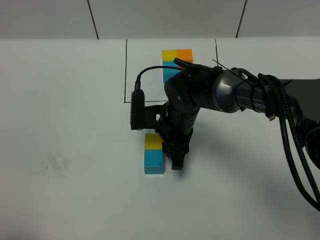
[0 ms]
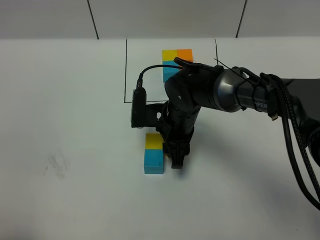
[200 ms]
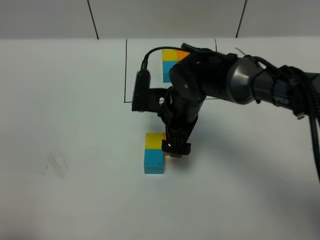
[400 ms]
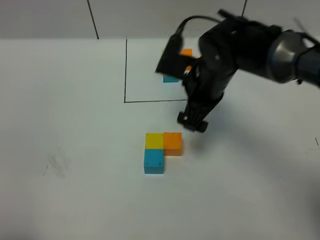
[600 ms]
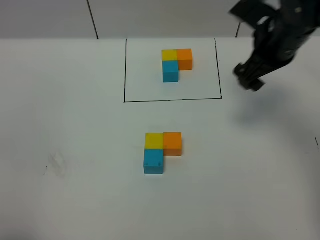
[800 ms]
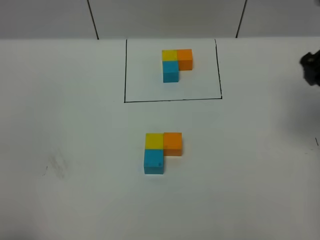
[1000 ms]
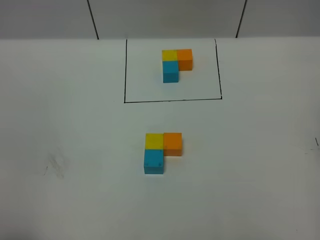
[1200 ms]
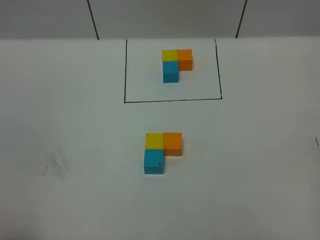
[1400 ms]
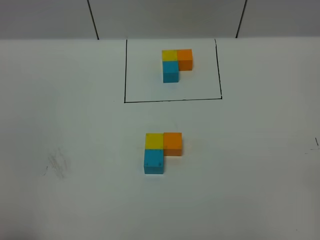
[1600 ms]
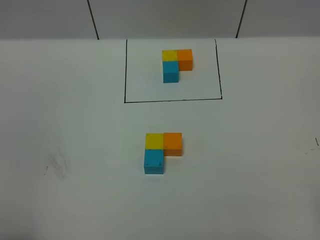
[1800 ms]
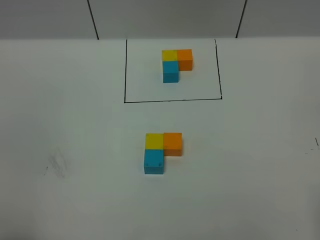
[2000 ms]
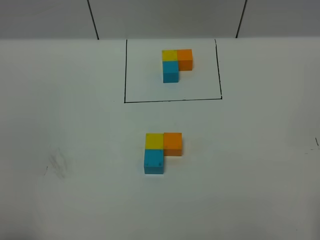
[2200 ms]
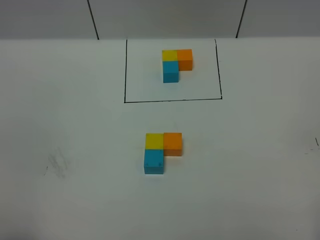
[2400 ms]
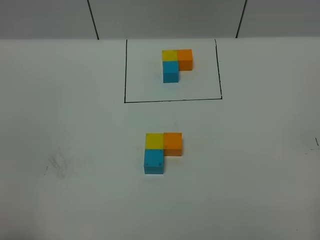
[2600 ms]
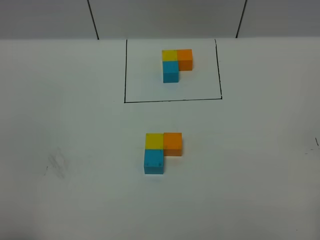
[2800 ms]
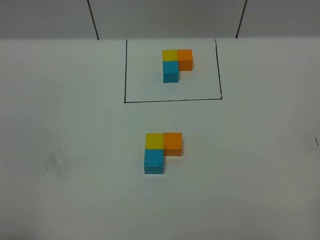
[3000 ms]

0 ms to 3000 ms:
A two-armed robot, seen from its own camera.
Task of the whole recording: According to the building block template in front, assemble the scattered blocks together.
0 ms to 1600 ms: The right gripper goes about 50 cm to the right, backward and upward, and opens its fingers.

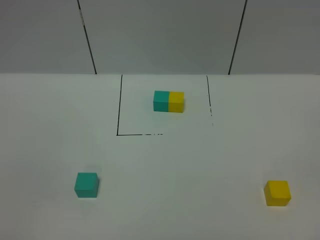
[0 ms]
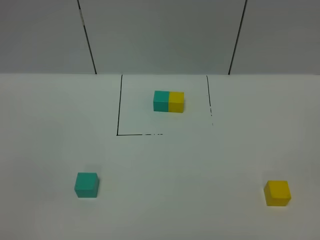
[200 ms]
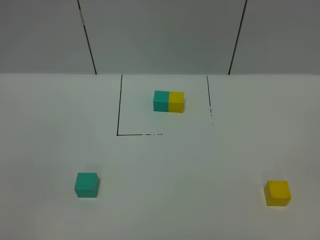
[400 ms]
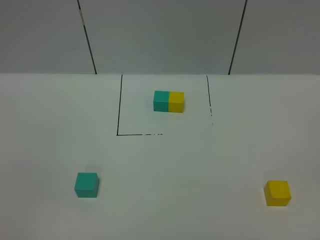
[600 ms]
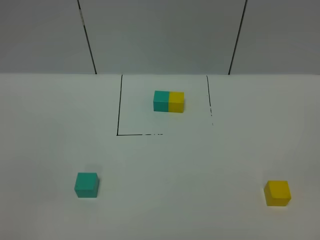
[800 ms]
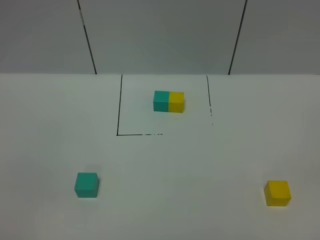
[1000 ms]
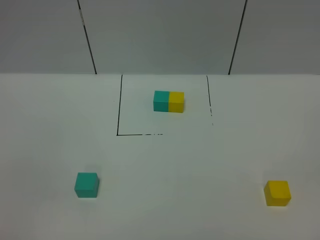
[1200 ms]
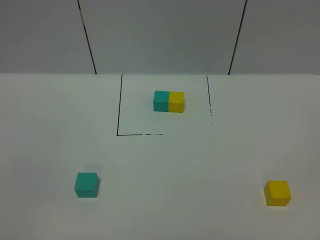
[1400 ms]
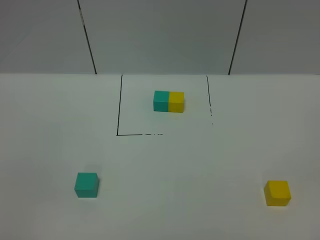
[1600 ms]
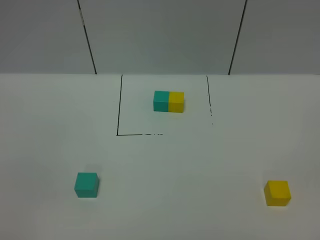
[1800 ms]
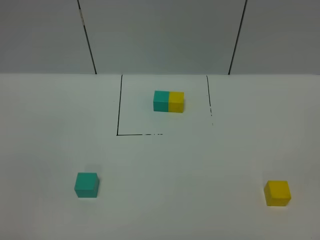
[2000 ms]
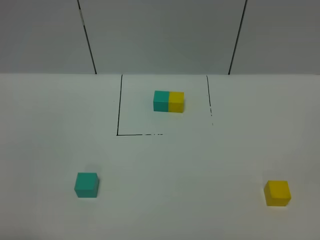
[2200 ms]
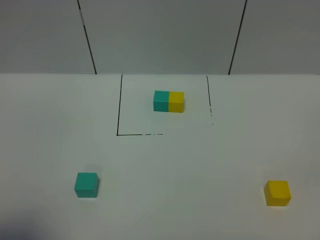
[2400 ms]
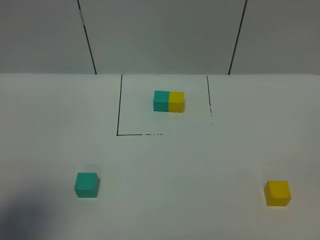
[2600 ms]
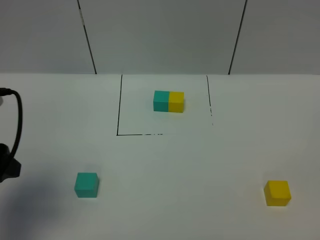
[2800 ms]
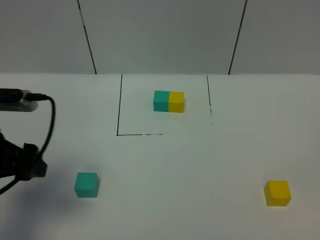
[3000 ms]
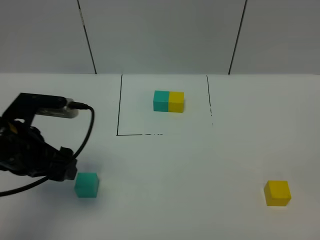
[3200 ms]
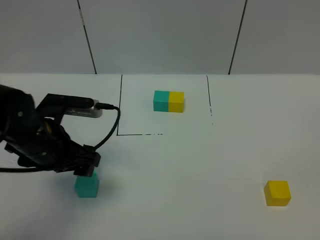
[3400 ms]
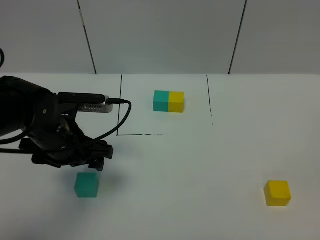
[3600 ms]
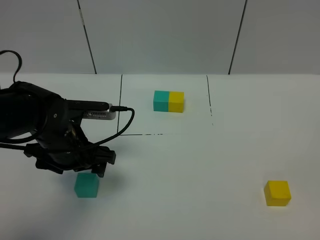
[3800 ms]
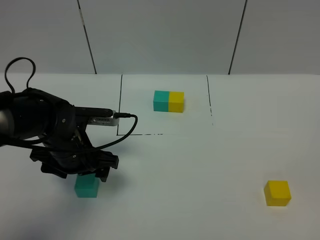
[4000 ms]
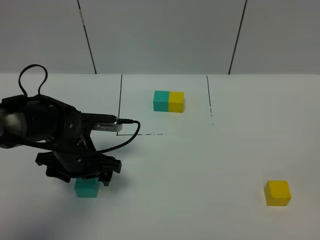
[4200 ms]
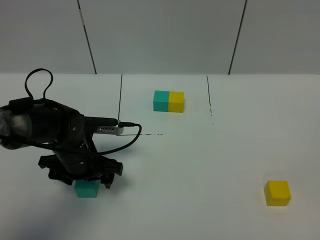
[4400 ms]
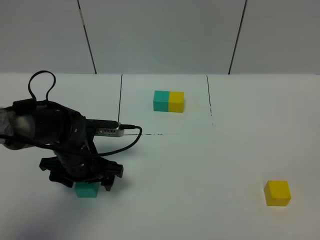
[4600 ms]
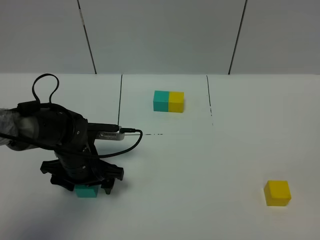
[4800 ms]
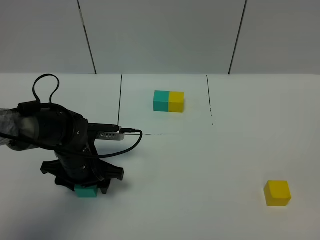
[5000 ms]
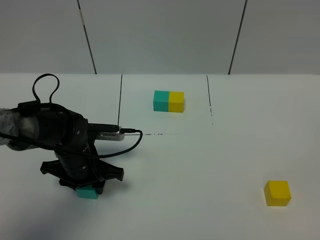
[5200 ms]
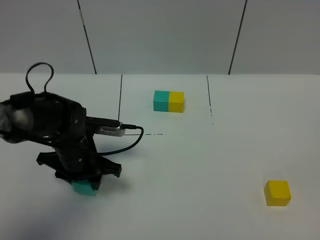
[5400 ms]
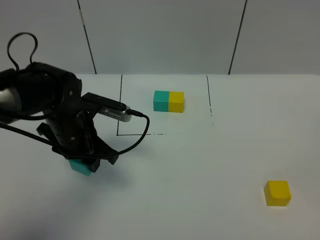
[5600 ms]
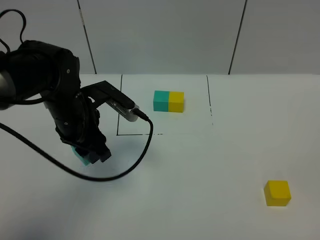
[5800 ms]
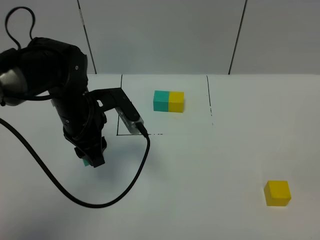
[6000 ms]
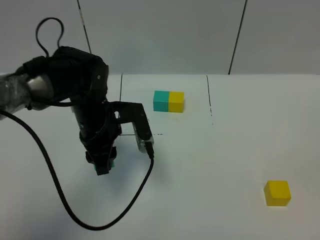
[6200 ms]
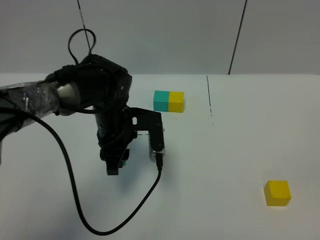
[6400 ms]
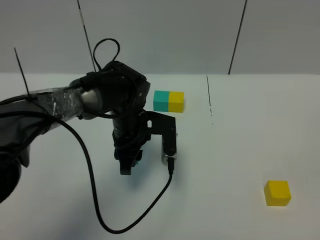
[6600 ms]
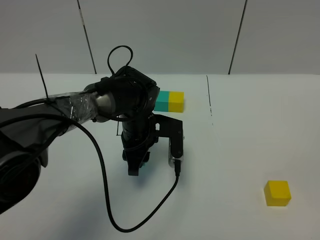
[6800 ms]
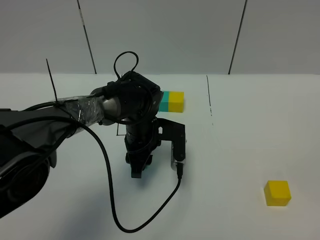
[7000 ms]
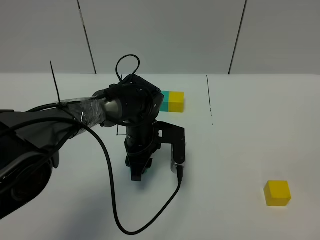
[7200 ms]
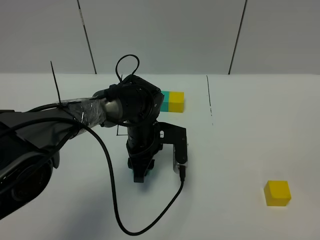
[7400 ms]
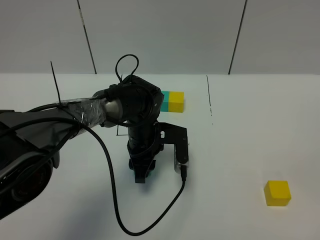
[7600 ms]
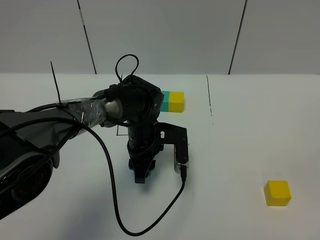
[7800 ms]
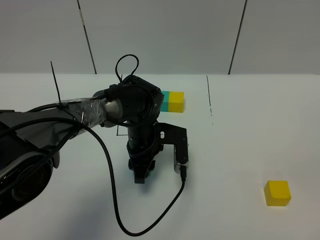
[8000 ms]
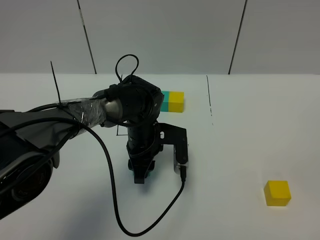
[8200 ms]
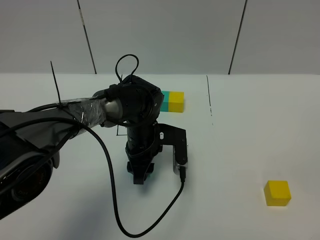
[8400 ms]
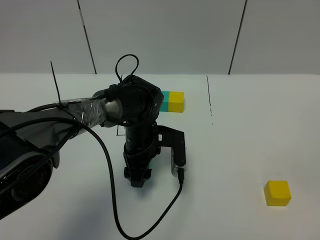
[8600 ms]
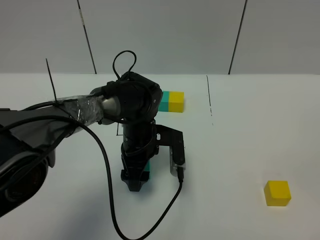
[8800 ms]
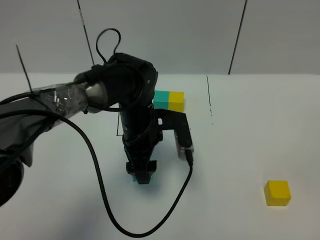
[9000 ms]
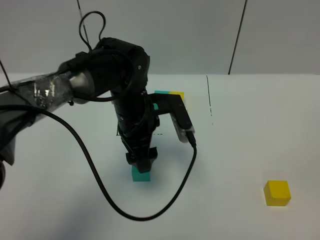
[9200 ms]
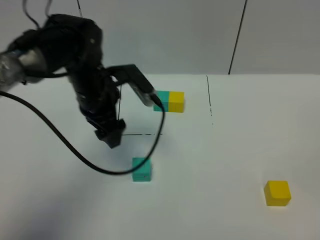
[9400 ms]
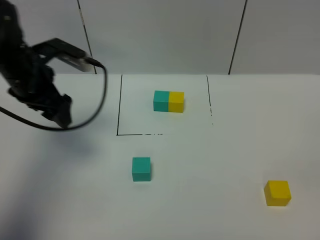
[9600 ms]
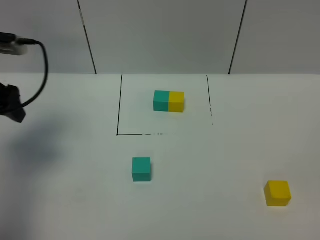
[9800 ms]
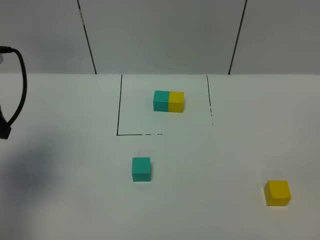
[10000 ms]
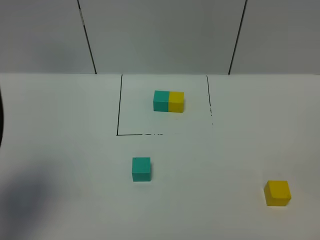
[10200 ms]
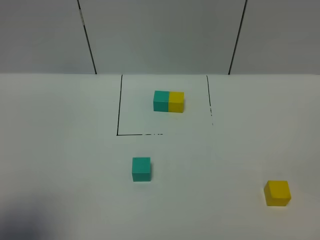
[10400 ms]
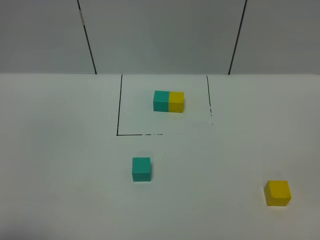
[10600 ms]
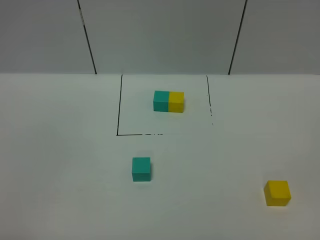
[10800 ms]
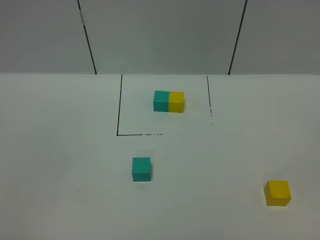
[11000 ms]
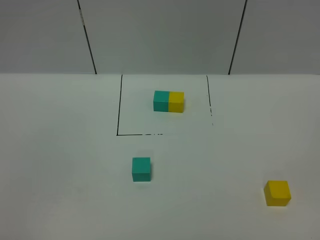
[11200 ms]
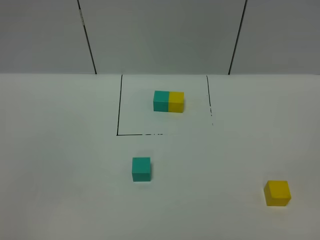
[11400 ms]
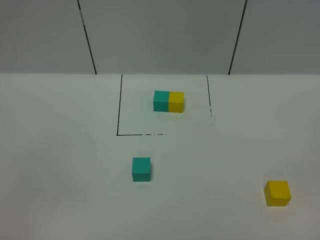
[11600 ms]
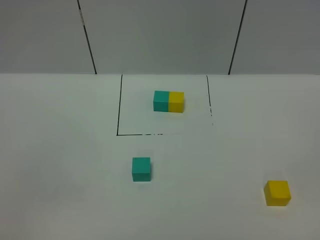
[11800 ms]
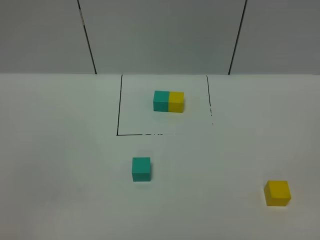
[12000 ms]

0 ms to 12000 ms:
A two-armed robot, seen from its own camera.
Task of the whole recording: According to the building block template in front, assemble the scattered blocks together.
Step, 2800 ms to 9600 ms: Put the green cube in the center of the table.
1600 ms to 3000 ms: The left gripper shifts some 25 cm forward.
3000 ms to 4400 ms: The left gripper shifts roughly 20 cm downward, to the right and forward.
4400 ms to 6000 ms: The left gripper is displaced upward by some 10 cm, and closes.
6000 ms to 7600 ms: The left gripper shifts some 15 cm to the right and downward.
7600 ms to 9000 ms: The left gripper heads upward, covering about 5 cm, and opens.
9000 ms to 10400 ms: The left gripper heads to the left, backward and upward, covering approximately 40 cm.
10400 ms to 12000 ms: The left gripper heads backward and downward, covering approximately 15 cm.

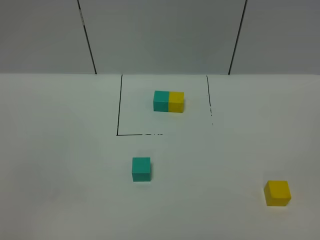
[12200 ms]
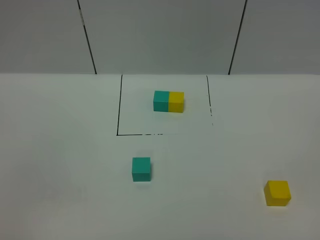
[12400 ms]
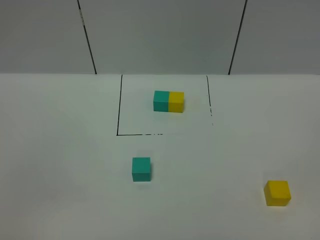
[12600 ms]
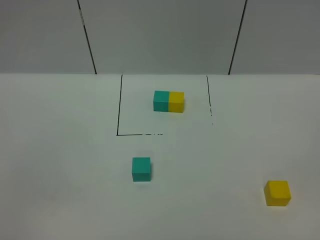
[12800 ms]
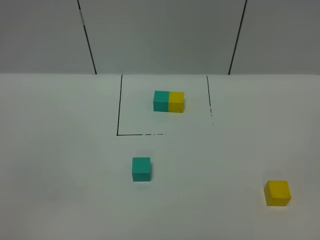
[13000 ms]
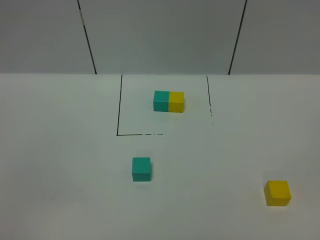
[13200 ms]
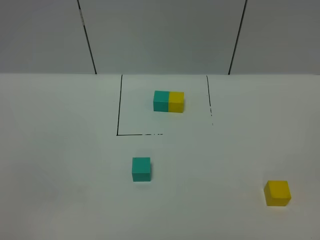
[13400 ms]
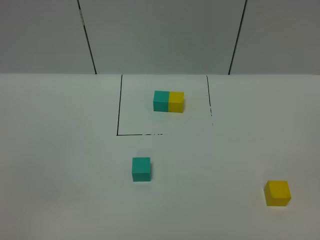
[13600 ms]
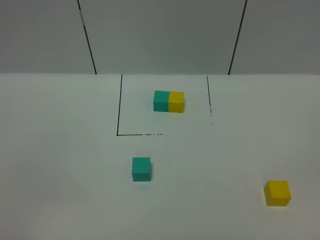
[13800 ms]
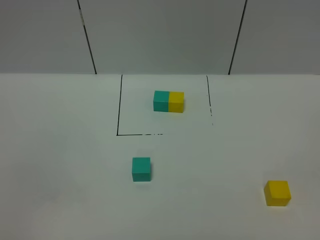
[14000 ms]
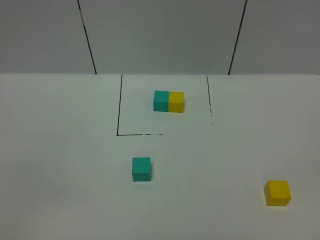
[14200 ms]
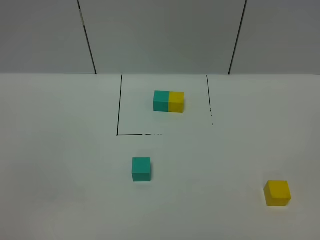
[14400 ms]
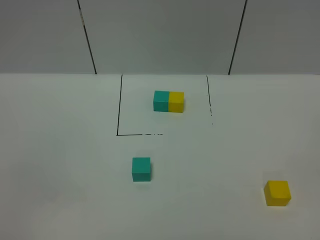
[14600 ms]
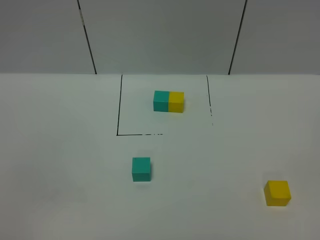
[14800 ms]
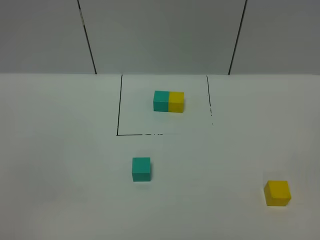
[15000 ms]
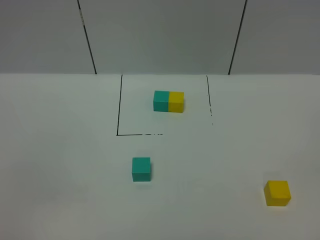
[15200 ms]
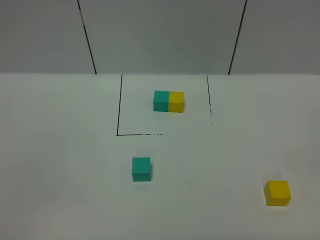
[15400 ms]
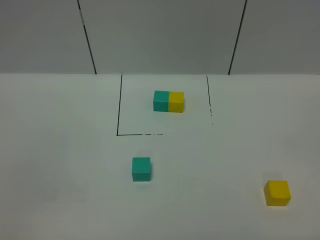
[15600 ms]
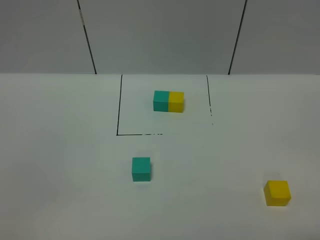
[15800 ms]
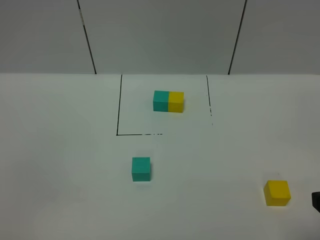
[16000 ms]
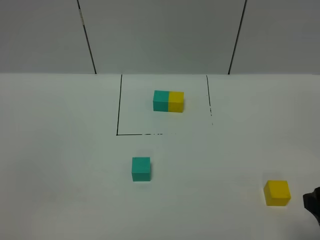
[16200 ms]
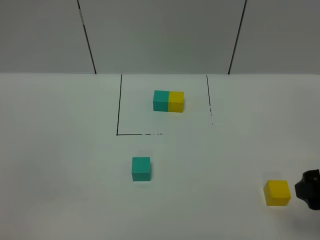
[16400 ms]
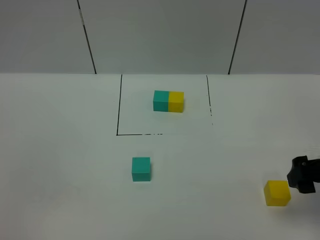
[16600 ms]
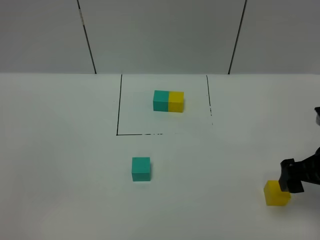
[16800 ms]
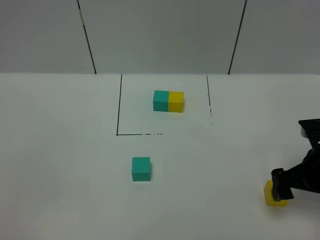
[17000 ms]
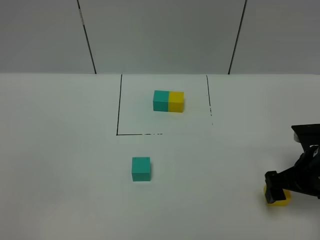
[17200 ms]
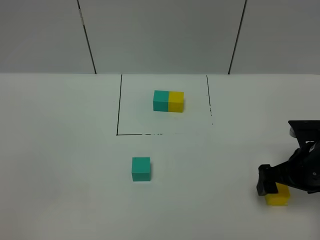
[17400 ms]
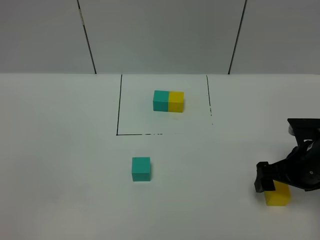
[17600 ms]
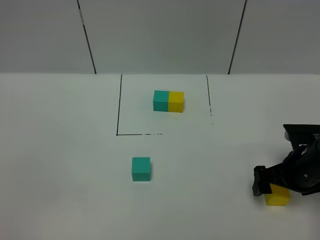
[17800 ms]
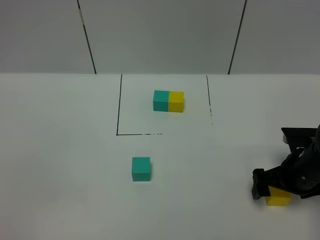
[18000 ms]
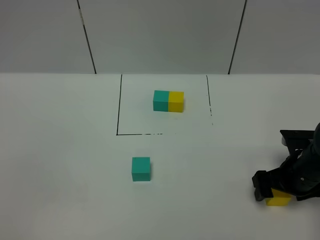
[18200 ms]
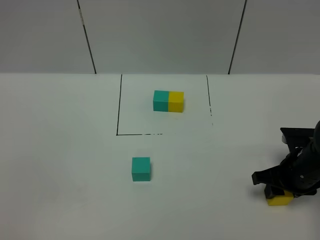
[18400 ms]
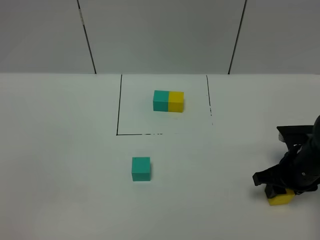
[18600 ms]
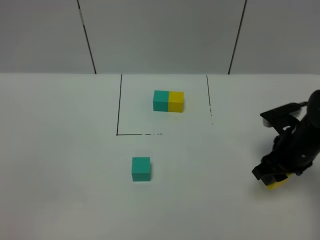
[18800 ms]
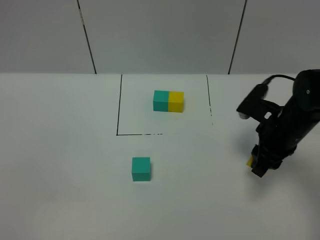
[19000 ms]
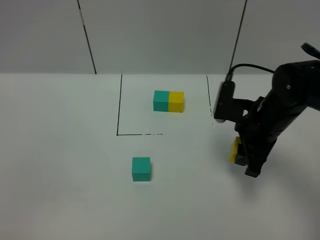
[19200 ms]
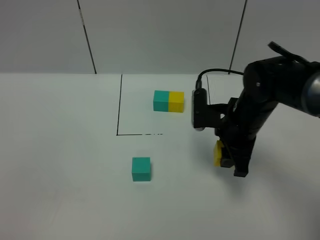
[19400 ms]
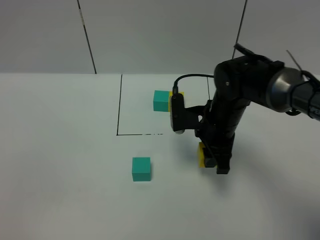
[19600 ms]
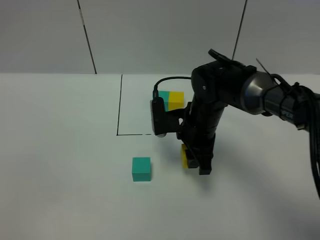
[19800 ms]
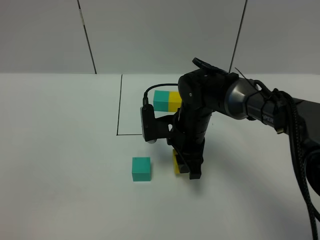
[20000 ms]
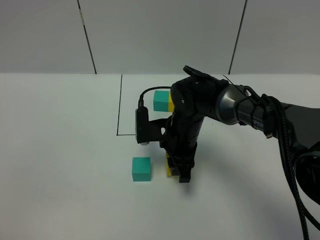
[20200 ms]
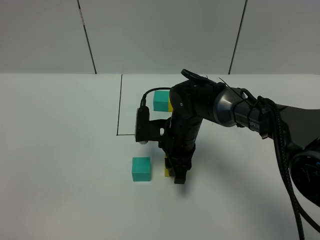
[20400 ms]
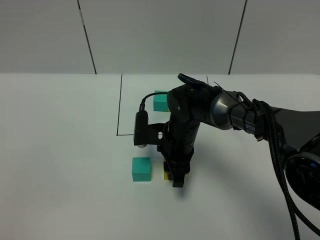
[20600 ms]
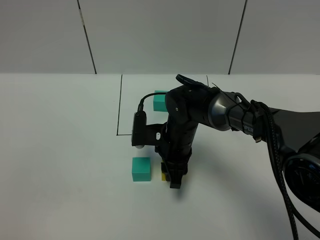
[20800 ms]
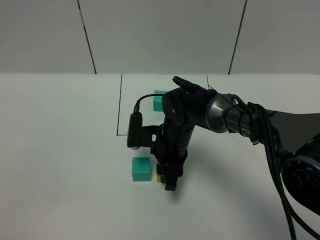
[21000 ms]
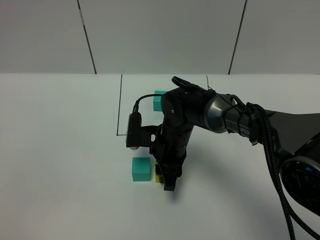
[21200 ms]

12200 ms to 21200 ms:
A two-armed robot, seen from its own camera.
Task of the whole recording: According to the building block template in front, assemble the scattered blocks together.
12200 ms to 13800 ms: The two grippers keep their place.
15200 ms to 16600 ms: The right gripper goes about 20 cm forward.
16600 ms to 18200 ms: The right gripper is displaced downward and forward by roughly 15 cm, and closes its fingers.
18200 ms to 19800 ms: The right gripper is displaced to the left and forward by roughly 20 cm, and closes.
19800 ms to 21200 ms: The right gripper ends up about 5 cm from where it was.
